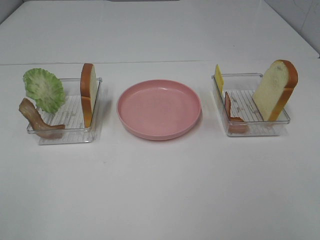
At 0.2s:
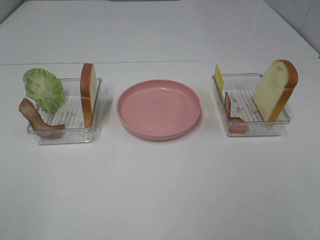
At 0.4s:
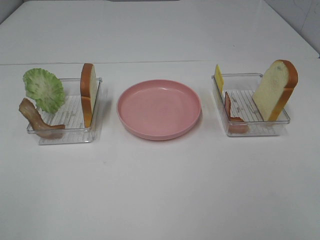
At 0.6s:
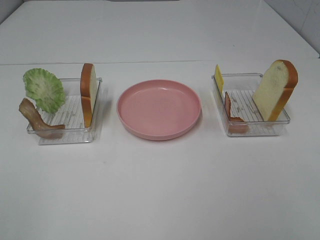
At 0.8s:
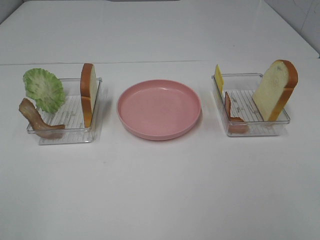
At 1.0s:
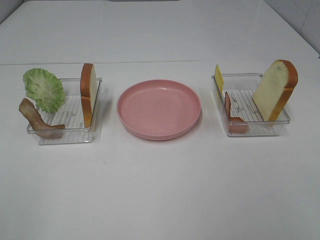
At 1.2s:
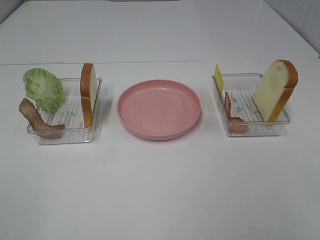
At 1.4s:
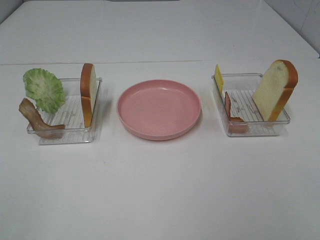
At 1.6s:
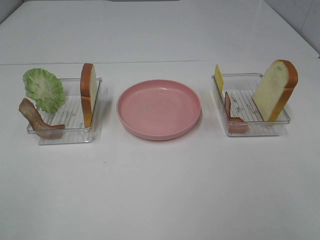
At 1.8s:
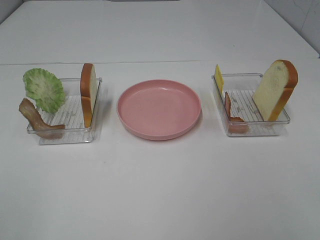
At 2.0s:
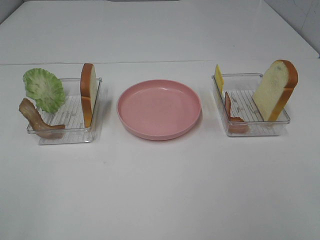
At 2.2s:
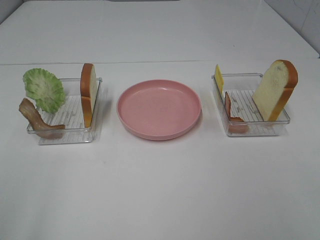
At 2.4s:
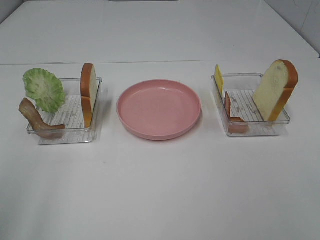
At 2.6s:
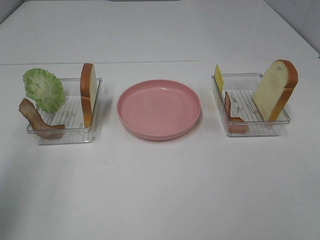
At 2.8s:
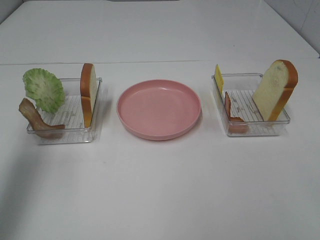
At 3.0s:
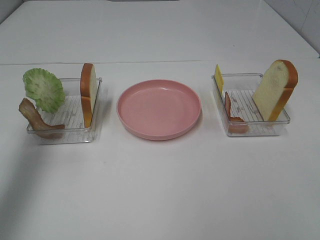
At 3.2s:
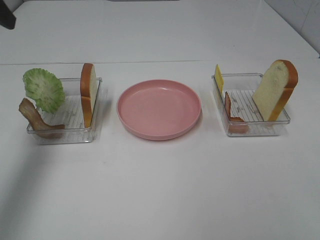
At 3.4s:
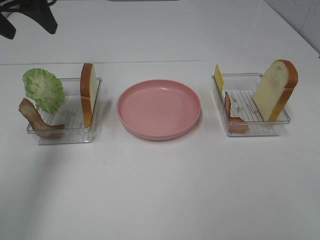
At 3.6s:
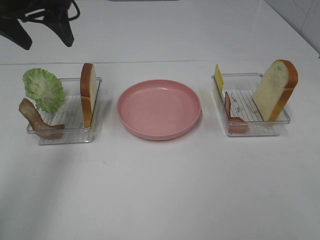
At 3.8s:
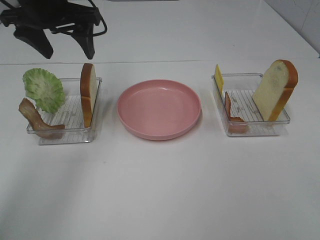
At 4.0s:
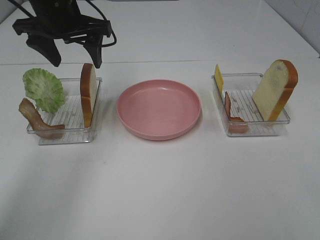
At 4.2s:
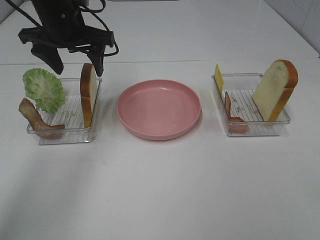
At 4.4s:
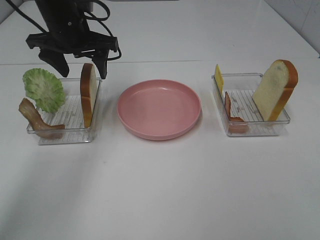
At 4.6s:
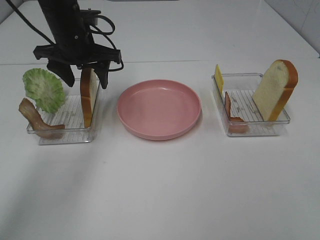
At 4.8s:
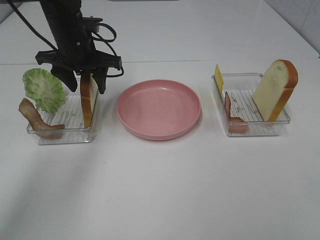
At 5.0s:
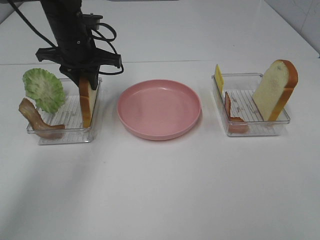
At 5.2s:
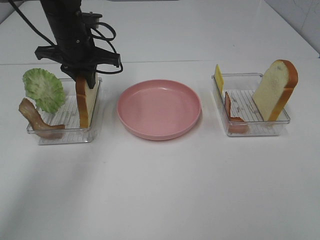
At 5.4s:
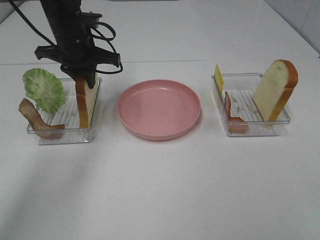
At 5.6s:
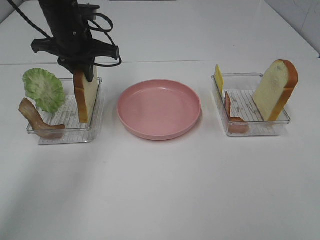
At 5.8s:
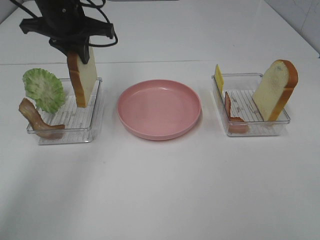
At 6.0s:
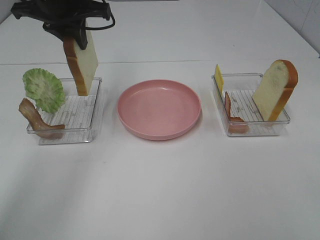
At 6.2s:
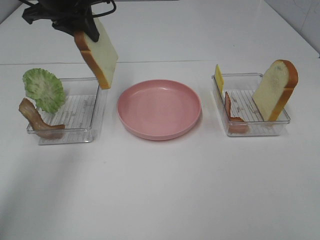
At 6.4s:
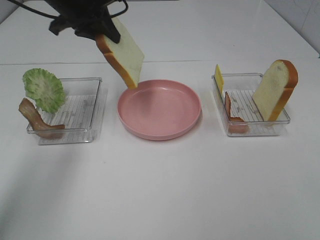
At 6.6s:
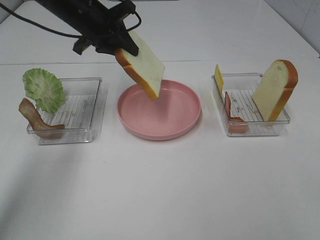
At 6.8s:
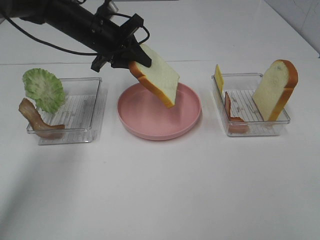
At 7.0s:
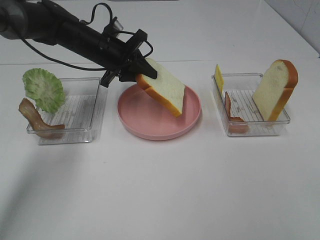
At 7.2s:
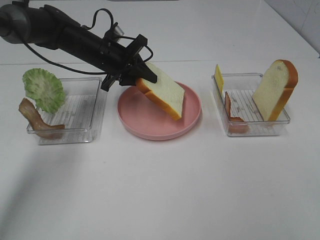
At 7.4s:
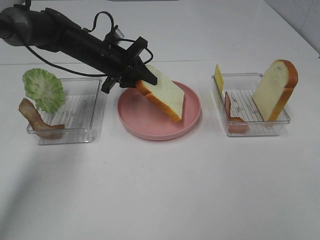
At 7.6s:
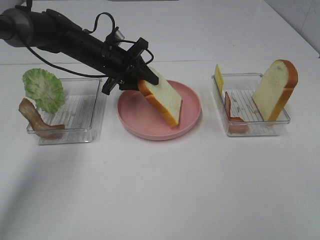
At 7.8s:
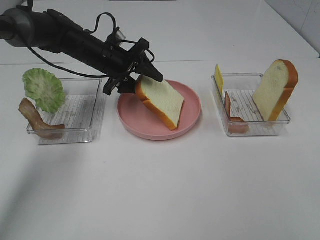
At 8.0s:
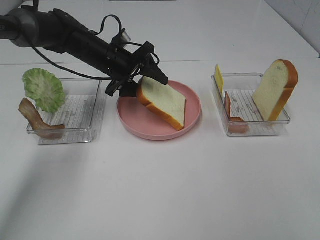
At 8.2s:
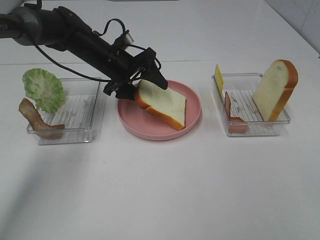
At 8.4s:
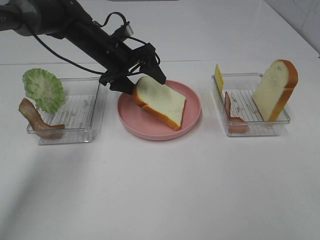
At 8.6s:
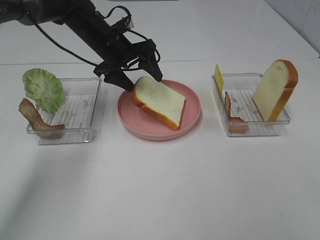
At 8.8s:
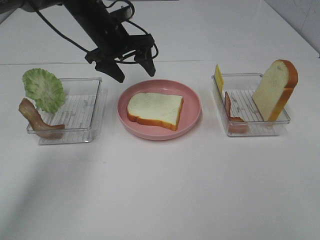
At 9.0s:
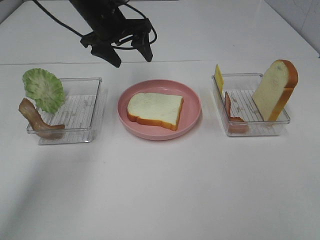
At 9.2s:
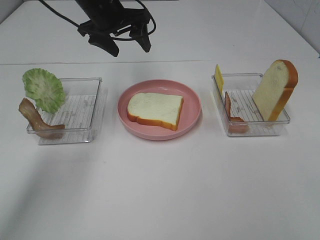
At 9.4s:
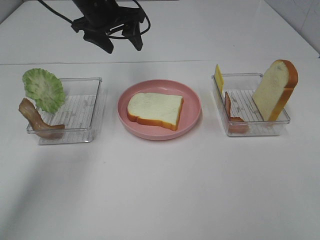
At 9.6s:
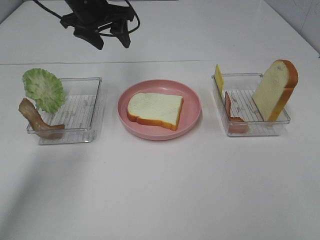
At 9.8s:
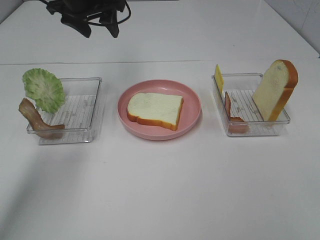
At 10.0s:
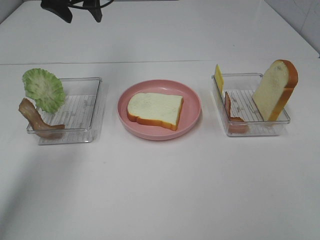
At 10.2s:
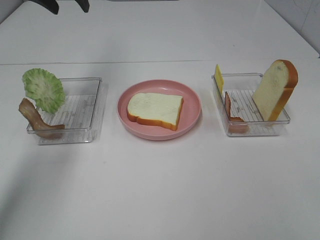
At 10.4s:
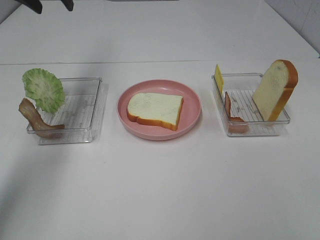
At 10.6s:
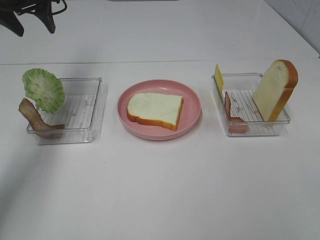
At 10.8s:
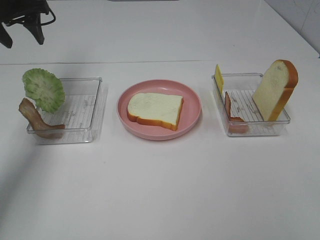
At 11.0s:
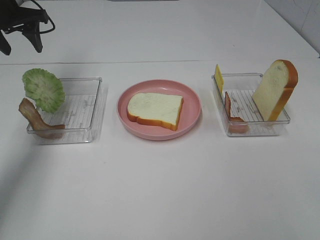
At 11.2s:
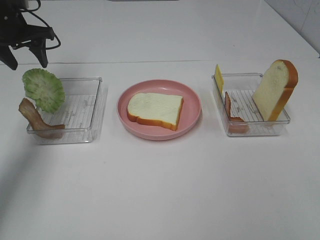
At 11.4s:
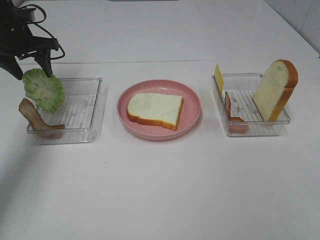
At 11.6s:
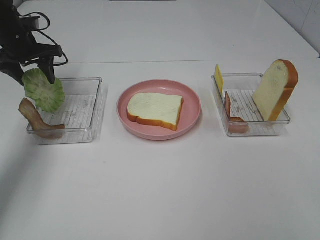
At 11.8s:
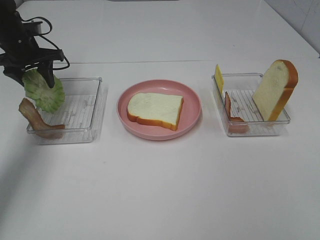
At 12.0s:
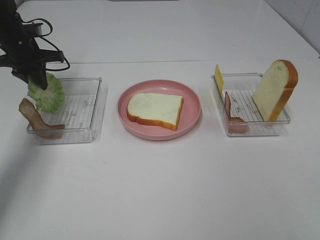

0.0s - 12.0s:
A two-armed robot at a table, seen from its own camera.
Task of the whole recording: Make sandwiches.
Step, 0.0s - 5.2s: Left hand:grab the bread slice.
Step, 5.4s - 8.6s: Left hand:place the bread slice on the plate.
0.0s - 1.6s: Neither gripper changes place.
1.6s - 3.0s: The left gripper moves forward, roughly 30 cm.
3.0s - 4.4s: The left gripper is displaced forward, to the right and downward by roughly 25 cm.
4.4s - 6.0s: The left gripper travels upward by about 5 cm, and closes up.
6.0s - 7.6s: The left gripper travels downward by some 15 cm.
7.6s - 9.0s: The left gripper shifts some 10 cm upward, and opens.
9.0s - 10.4s: The left gripper heads to the left and upward, covering roughly 15 cm.
10.4s - 12.0s: The left gripper shifts roughly 15 cm downward, and closes up.

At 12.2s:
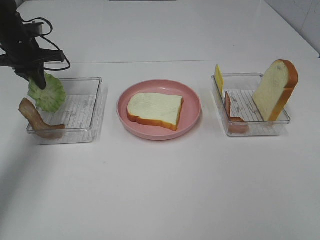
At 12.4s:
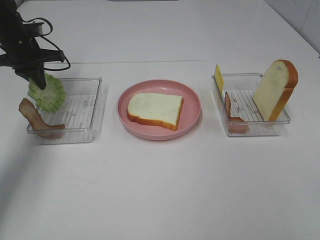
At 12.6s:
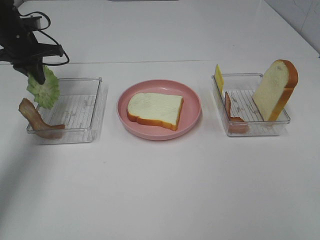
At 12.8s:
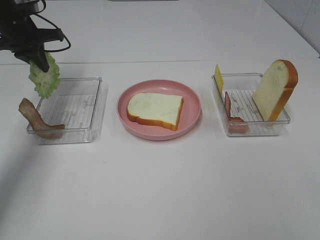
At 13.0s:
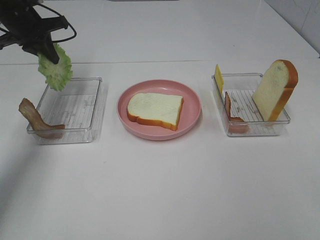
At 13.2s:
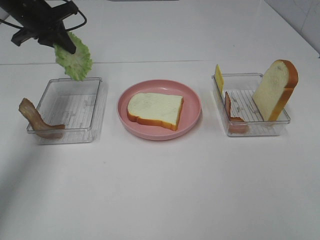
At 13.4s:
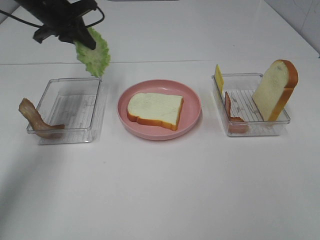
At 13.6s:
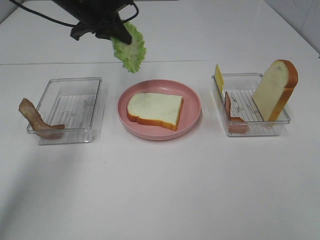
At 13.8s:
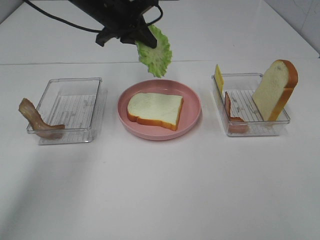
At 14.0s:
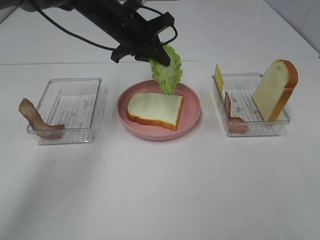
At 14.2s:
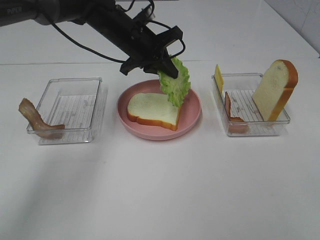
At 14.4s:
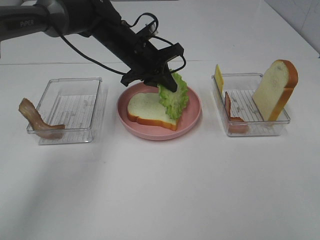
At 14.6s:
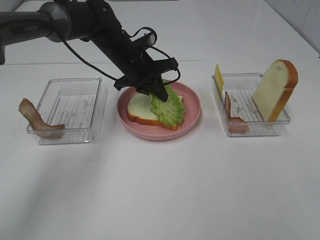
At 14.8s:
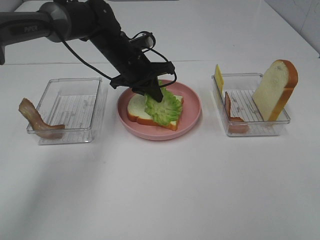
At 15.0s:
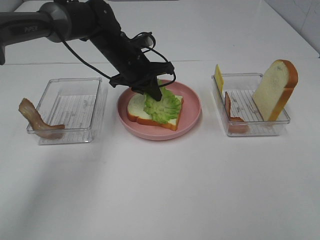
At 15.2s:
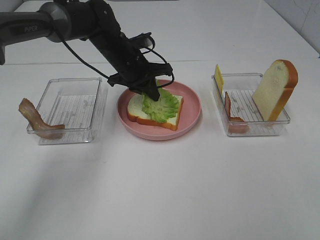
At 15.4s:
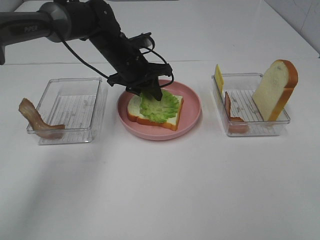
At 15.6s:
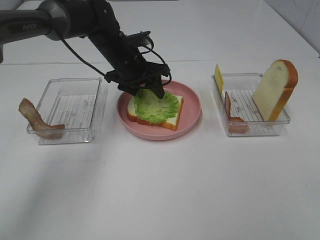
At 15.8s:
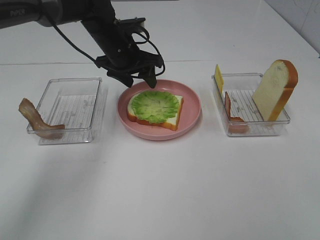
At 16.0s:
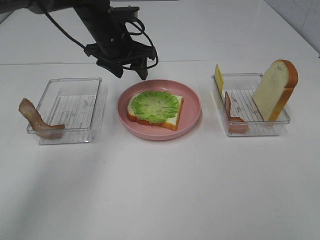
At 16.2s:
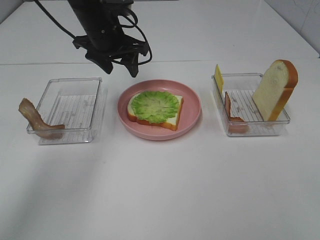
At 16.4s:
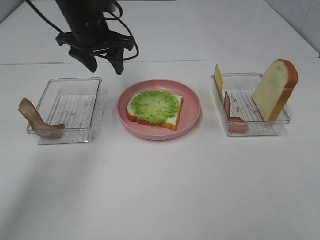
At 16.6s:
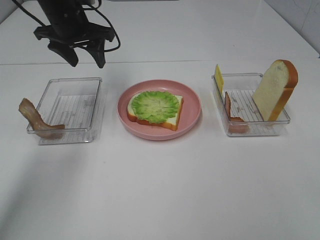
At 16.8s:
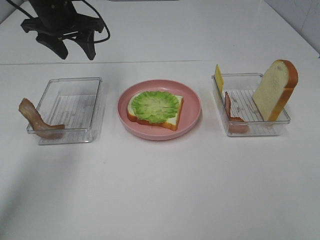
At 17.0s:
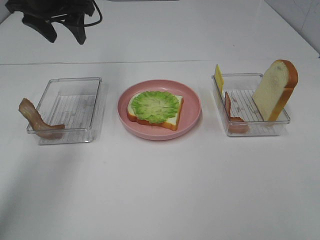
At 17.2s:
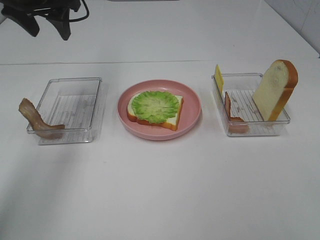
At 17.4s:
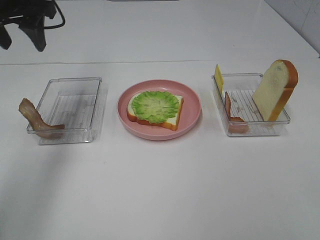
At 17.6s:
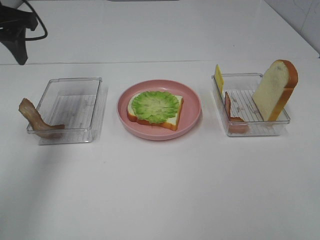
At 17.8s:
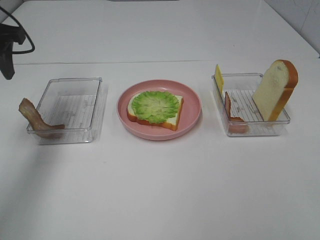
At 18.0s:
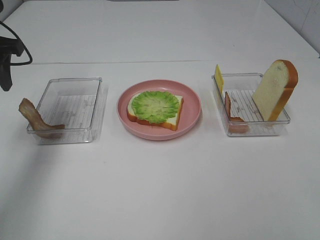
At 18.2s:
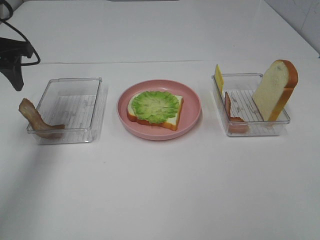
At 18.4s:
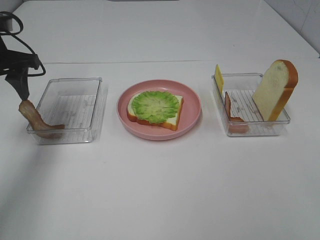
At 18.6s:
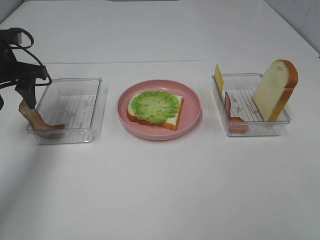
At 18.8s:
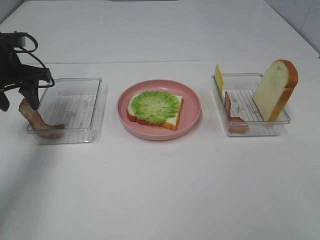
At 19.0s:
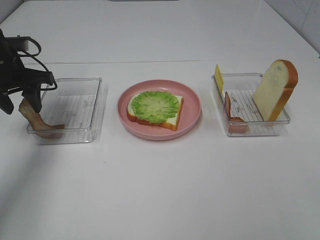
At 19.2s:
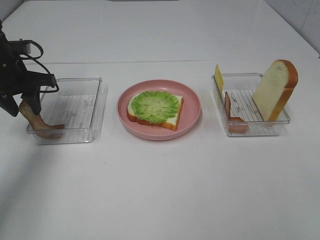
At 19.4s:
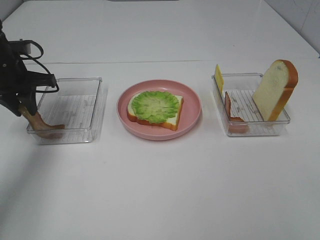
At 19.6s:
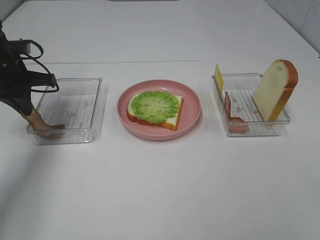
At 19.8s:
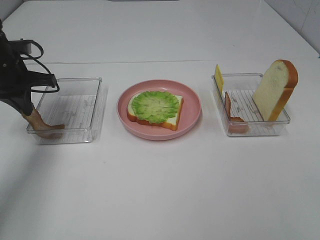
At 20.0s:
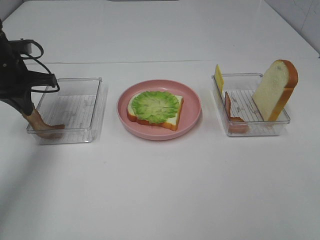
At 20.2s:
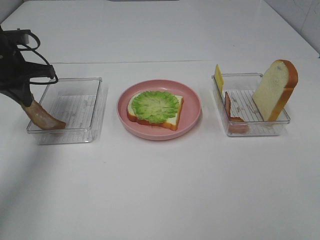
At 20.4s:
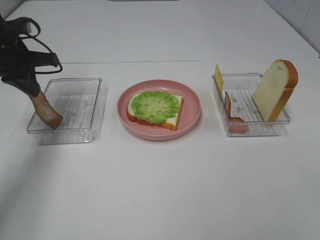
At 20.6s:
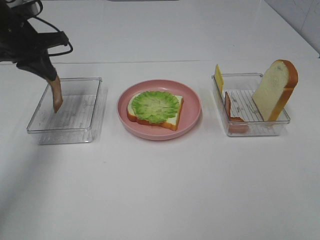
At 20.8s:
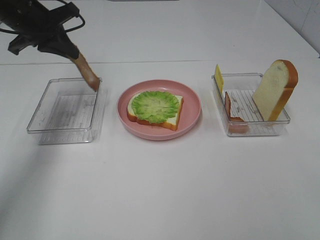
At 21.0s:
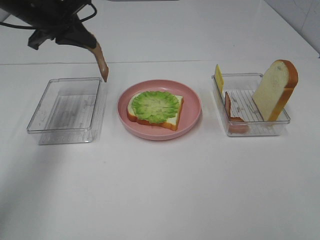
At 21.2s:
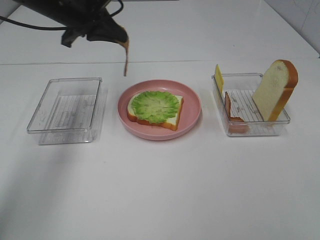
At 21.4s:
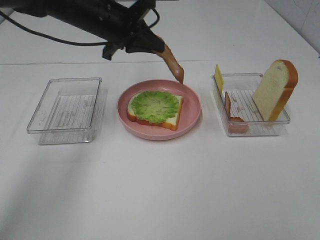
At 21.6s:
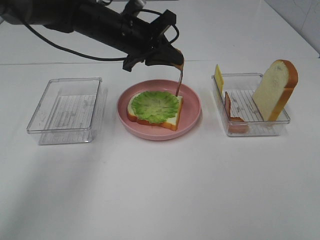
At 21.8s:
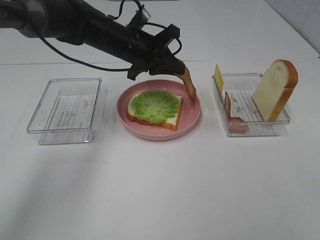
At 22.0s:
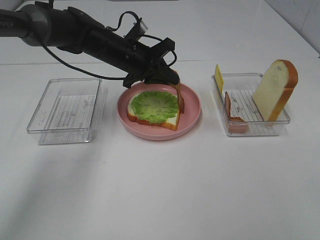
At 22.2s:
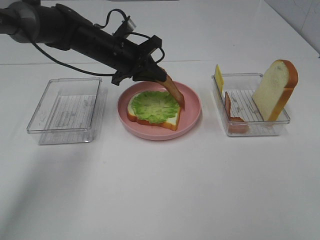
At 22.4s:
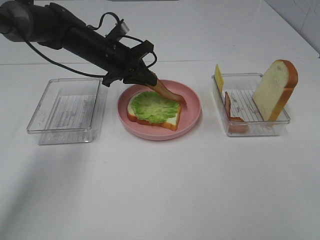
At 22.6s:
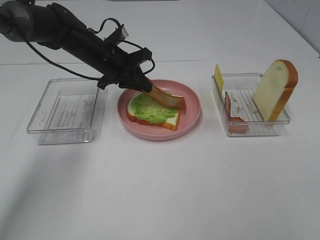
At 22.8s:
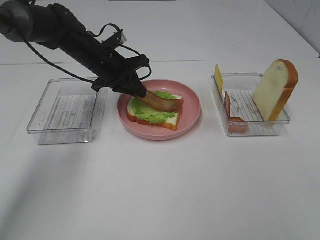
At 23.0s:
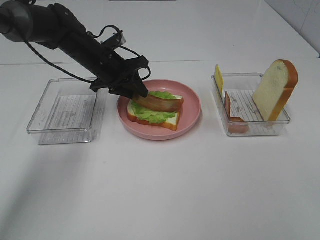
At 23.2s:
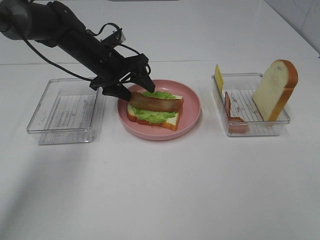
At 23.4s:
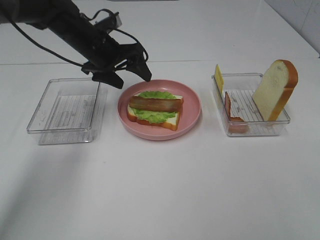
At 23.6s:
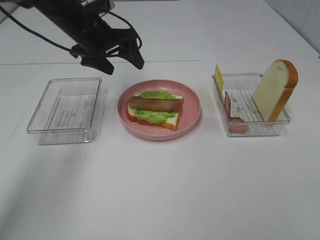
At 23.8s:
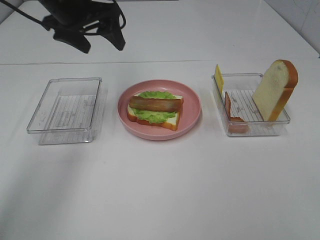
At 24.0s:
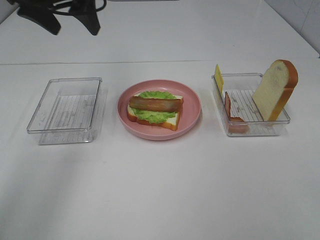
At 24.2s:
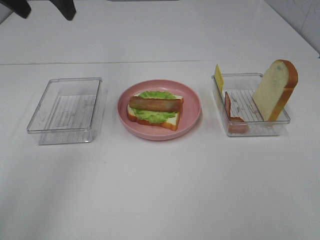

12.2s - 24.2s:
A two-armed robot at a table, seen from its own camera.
Task of the whole recording: Make sandwiches.
Step, 12.6s - 16.0s: Left hand:place the lettuce slice on the bread slice.
Step, 16.2s - 19.8s: Left hand:grab the bacon.
Step, 20.0s - 23.4s: Left hand:place bacon on lettuce slice.
12.2s - 13.8s: The left gripper moves to the right, roughly 20 cm.
13.8s - 15.2s: The left gripper travels downward by some 10 cm.
15.2s - 16.6s: The left gripper shifts some 15 cm to the left and upward, and opens its fingers.
16.6s - 18.2s: The left gripper goes about 15 cm to the left and backward.
18.2s - 19.8s: The left gripper heads downward, covering approximately 10 cm, and closes.
19.8s - 21.2s: The left gripper travels to the right and upward by about 15 cm.
21.2s - 22.6s: The left gripper moves downward, some 10 cm.
22.6s - 24.2s: The left gripper heads upward and backward, covering some 25 cm, and opens up.
